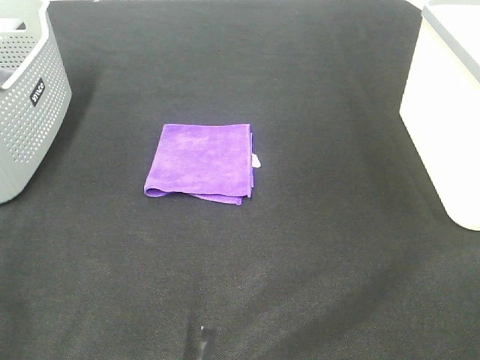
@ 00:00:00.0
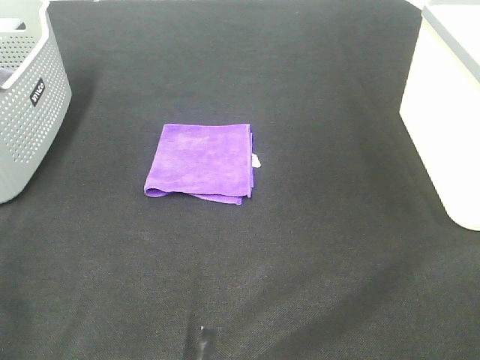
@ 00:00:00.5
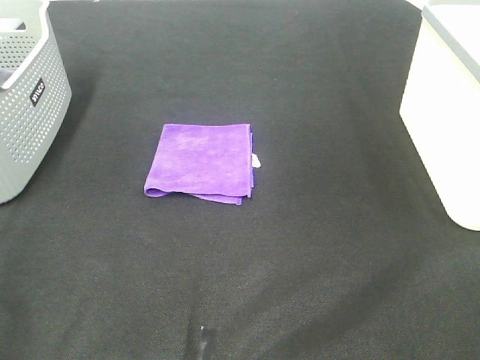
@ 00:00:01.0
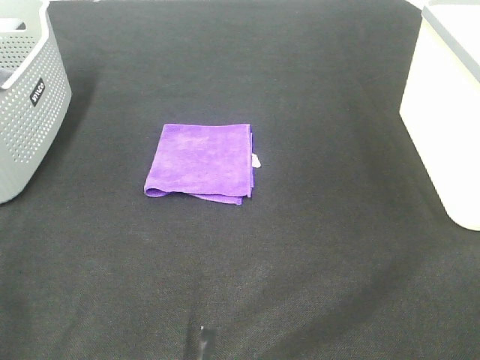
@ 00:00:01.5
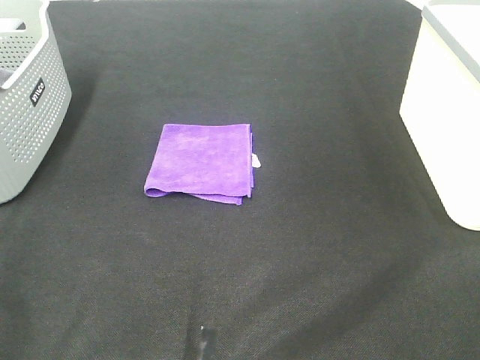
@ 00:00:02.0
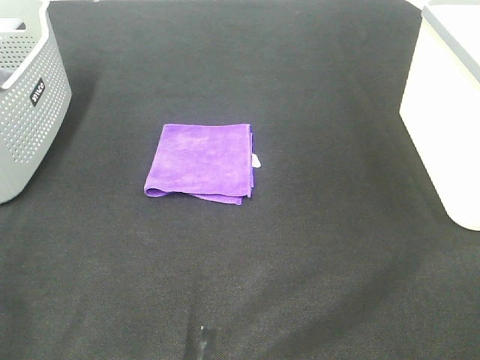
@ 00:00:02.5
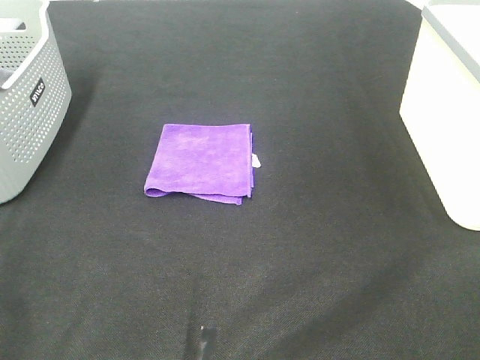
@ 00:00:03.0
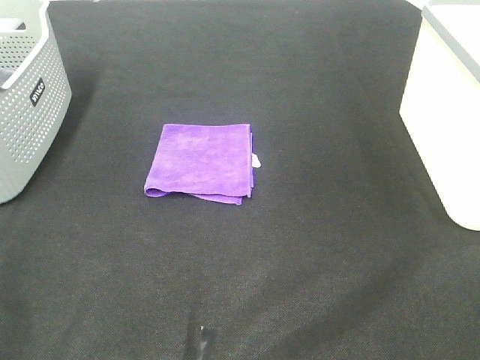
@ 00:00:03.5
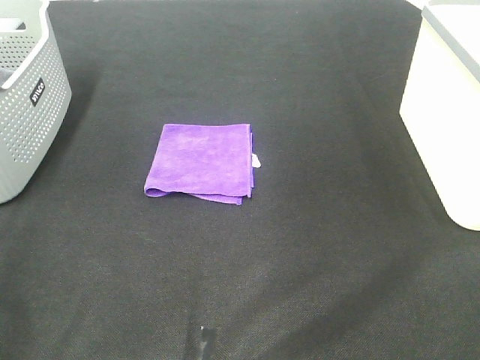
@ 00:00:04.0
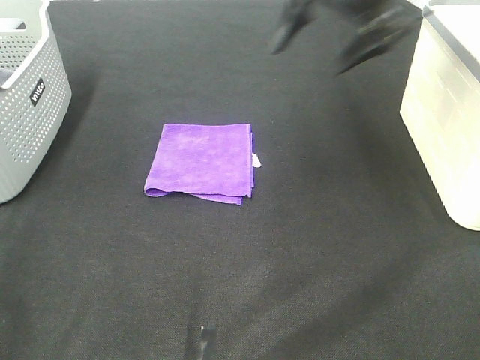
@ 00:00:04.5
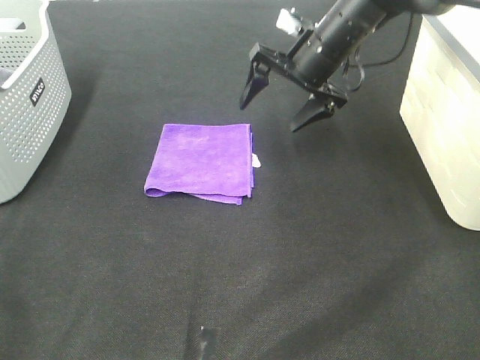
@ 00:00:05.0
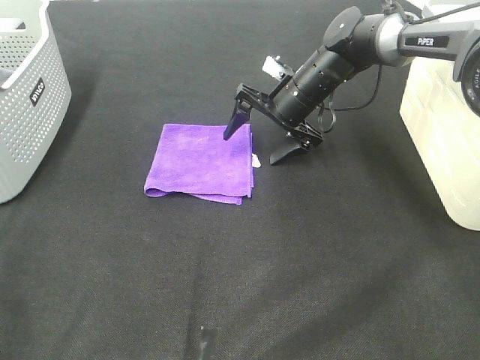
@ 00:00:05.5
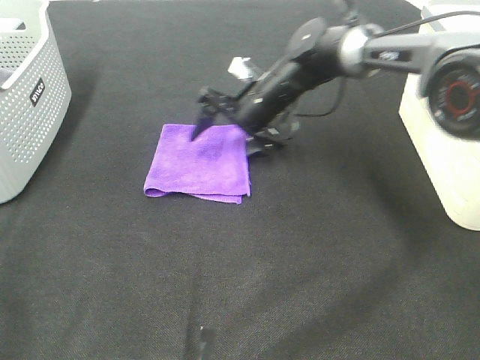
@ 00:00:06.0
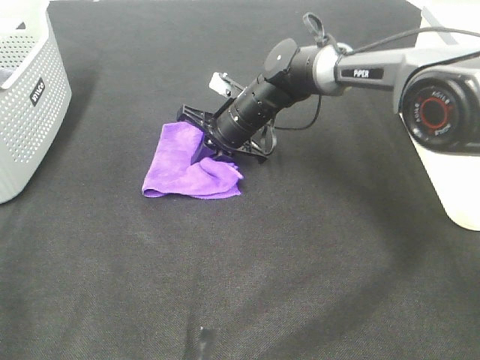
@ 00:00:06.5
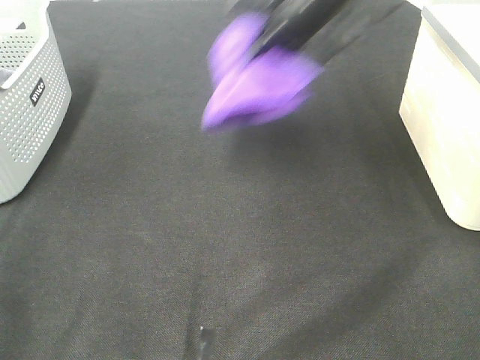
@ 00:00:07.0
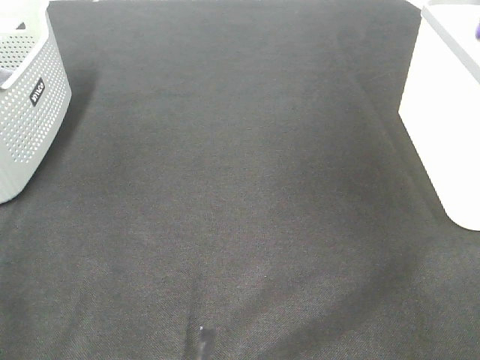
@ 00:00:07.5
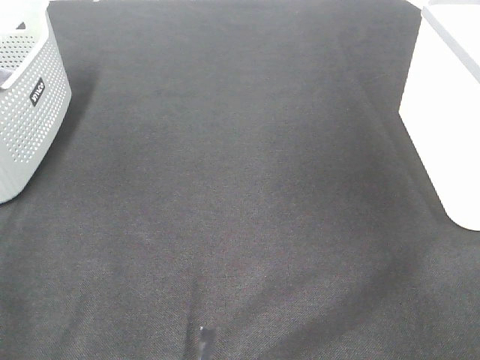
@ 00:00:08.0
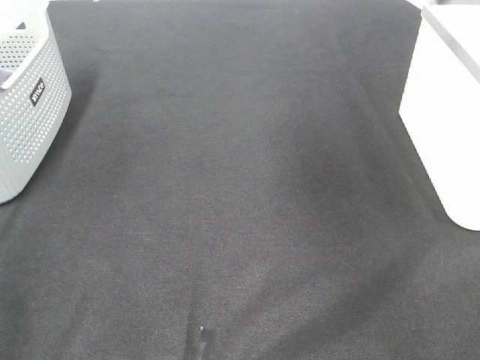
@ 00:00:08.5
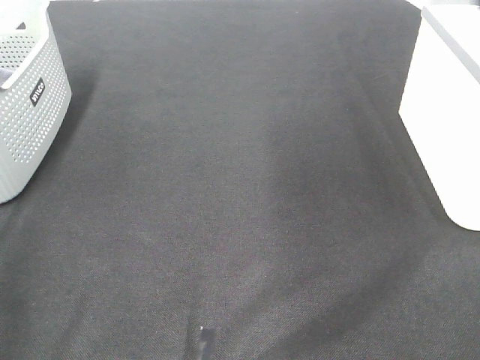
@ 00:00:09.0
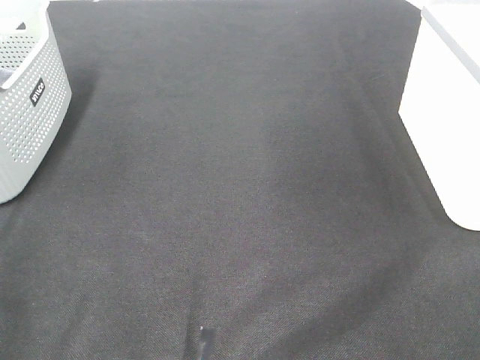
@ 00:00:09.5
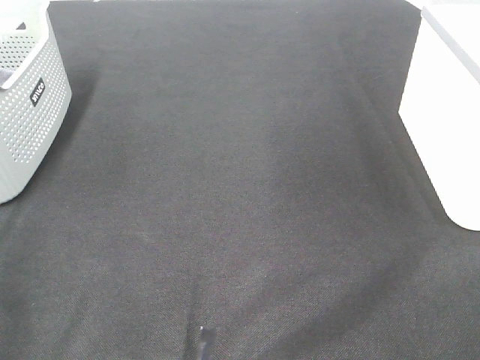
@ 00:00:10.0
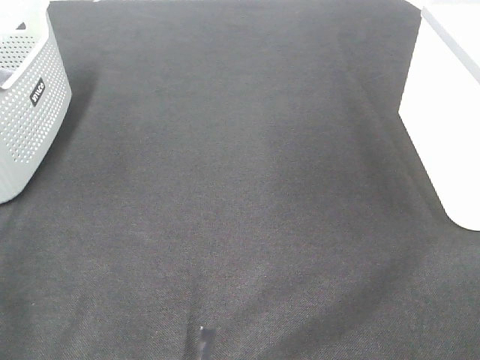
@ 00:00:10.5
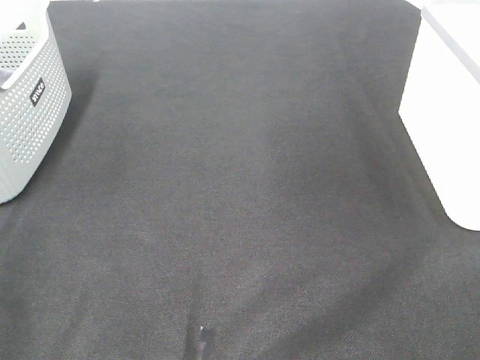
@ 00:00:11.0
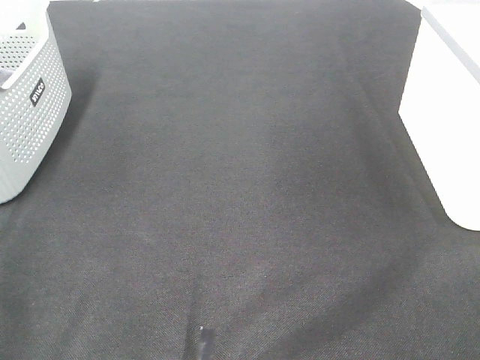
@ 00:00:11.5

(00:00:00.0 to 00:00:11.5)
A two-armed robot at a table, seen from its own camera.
Step, 00:00:00.0 - 00:00:06.5: Right hand: grab the folded purple towel.
Step, 00:00:07.0 - 00:00:08.0: Right hand: place the purple towel in right basket.
00:00:00.0 - 00:00:02.0: Both grippers stay put.
00:00:04.0 - 00:00:06.0: The right gripper travels downward, forward and to the left by some 50 cm.
00:00:06.0 - 00:00:07.5: The right gripper heads to the right and upward, covering some 50 cm, and closes its fingers.
